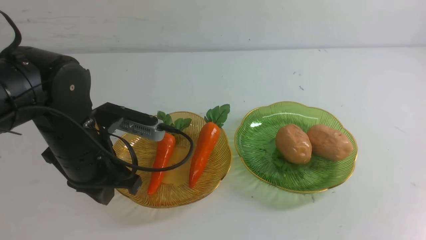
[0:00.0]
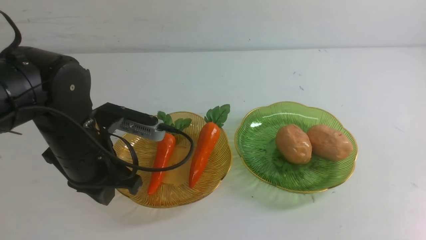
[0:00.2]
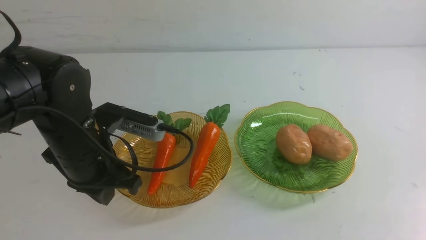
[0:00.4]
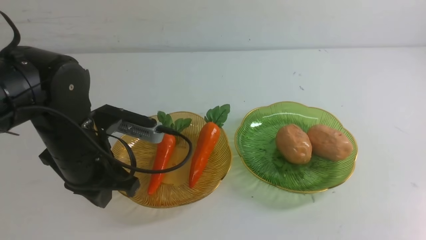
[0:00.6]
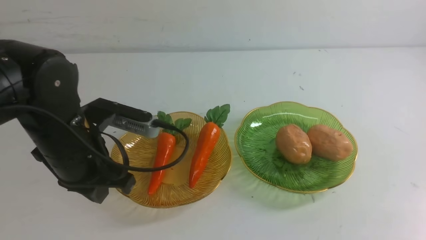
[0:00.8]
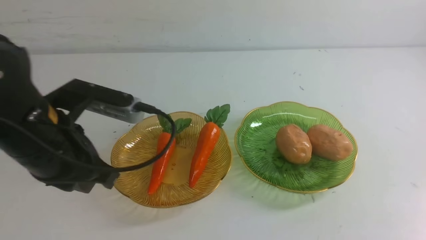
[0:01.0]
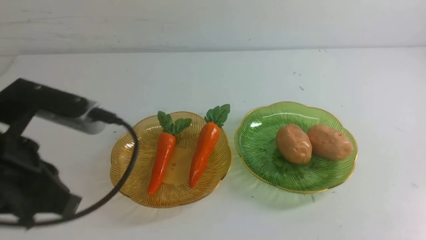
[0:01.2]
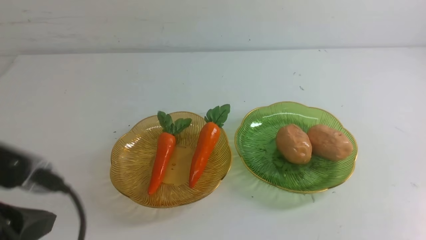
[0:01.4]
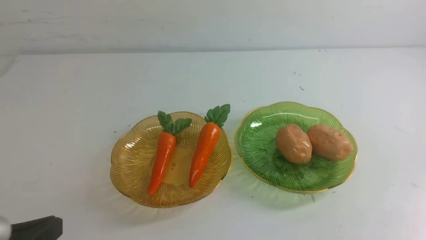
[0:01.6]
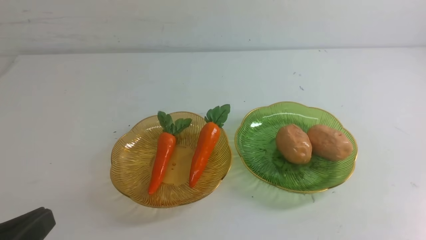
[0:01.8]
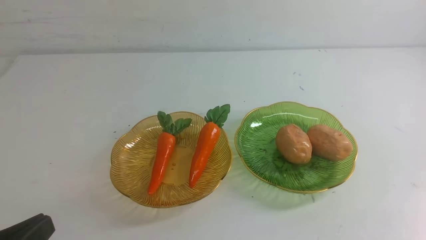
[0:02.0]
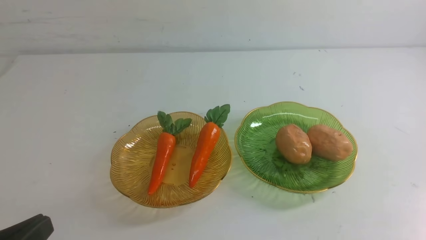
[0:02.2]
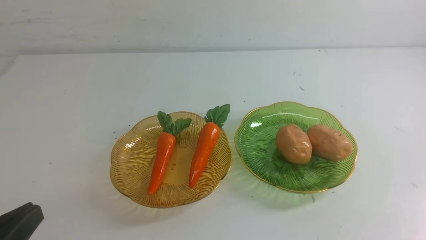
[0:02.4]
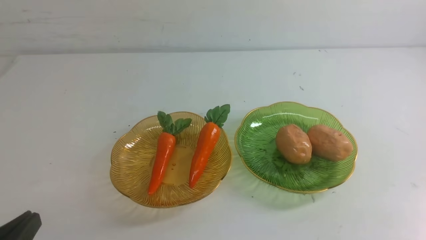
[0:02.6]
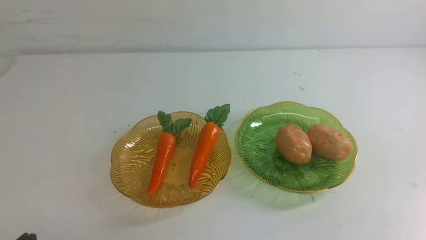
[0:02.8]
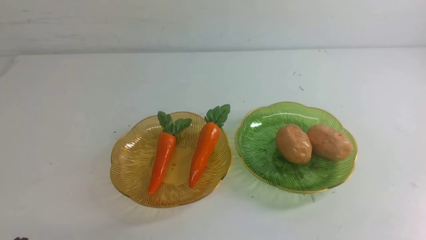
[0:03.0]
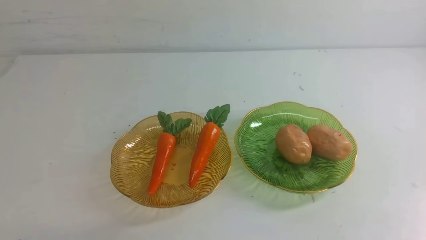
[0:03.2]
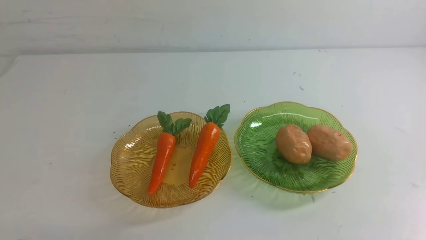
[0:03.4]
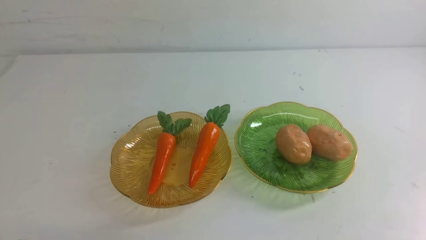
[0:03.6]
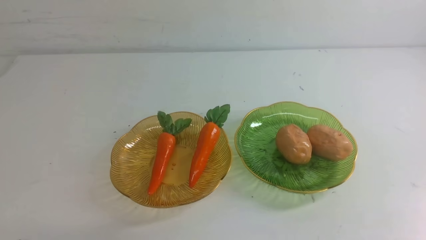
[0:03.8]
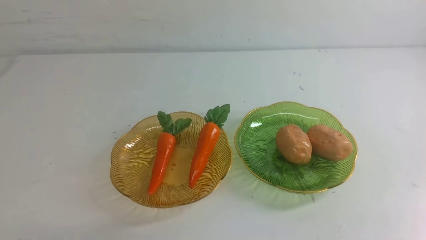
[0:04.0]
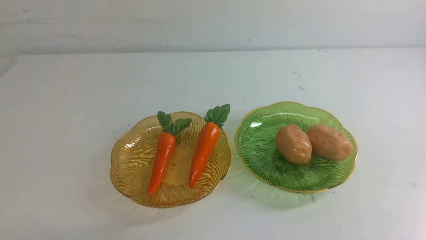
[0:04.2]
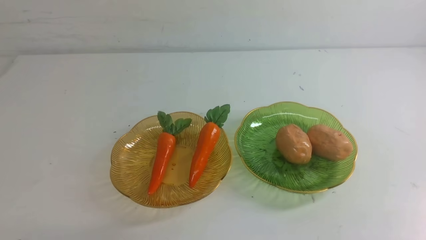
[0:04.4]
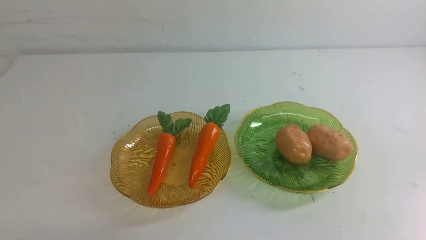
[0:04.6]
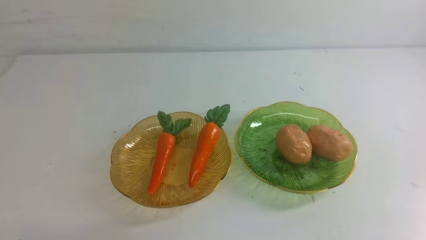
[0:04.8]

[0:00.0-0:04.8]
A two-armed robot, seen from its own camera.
0:00.0 to 0:01.6: The left gripper moves backward, about 20 cm. Meanwhile the right gripper is displaced downward by some 5 cm.
0:01.6 to 0:03.2: The left gripper travels downward by roughly 10 cm.
0:03.2 to 0:04.8: Both grippers stay put.
